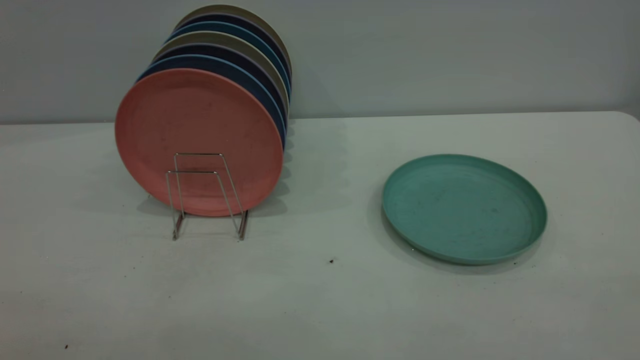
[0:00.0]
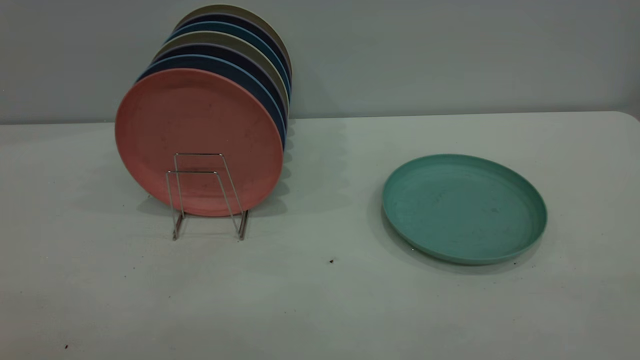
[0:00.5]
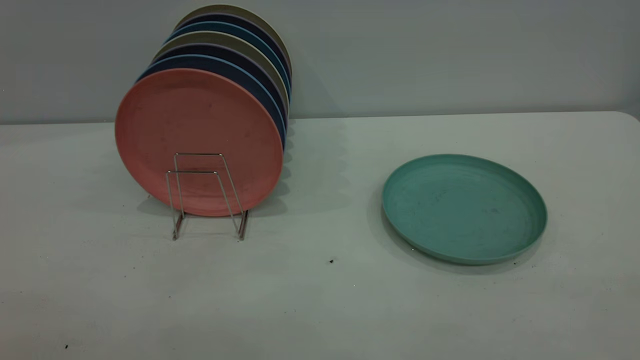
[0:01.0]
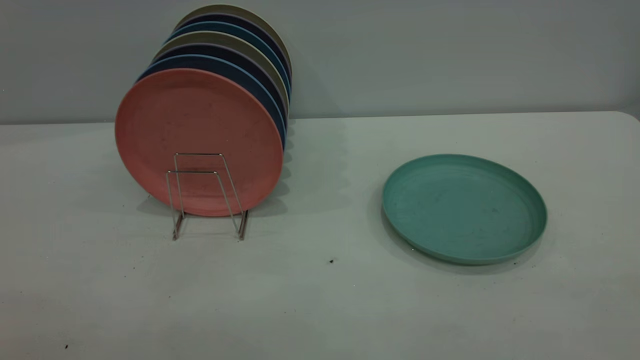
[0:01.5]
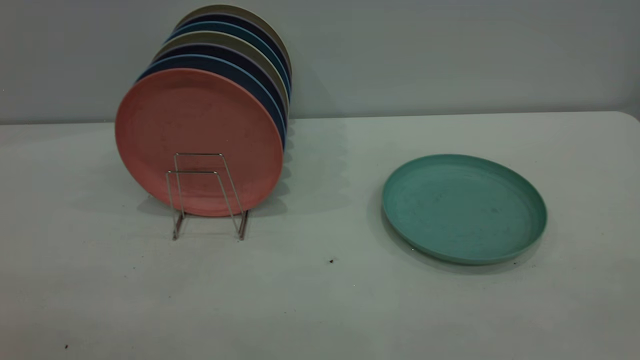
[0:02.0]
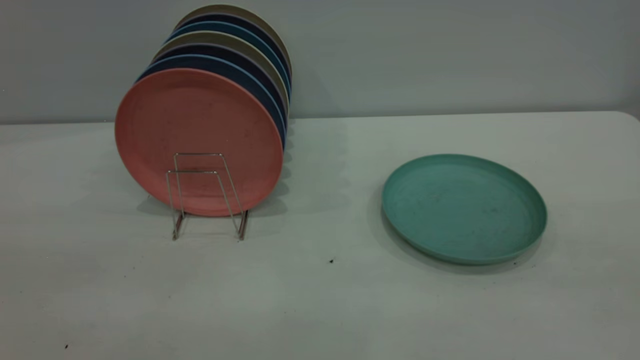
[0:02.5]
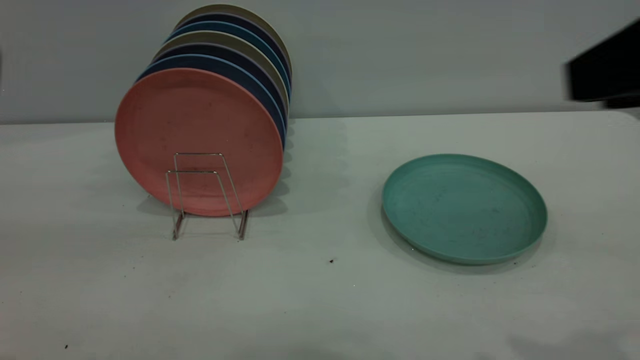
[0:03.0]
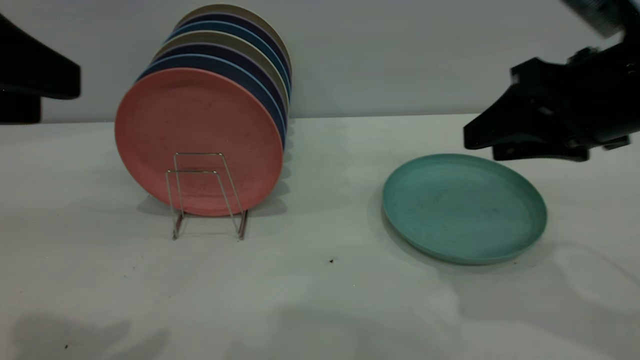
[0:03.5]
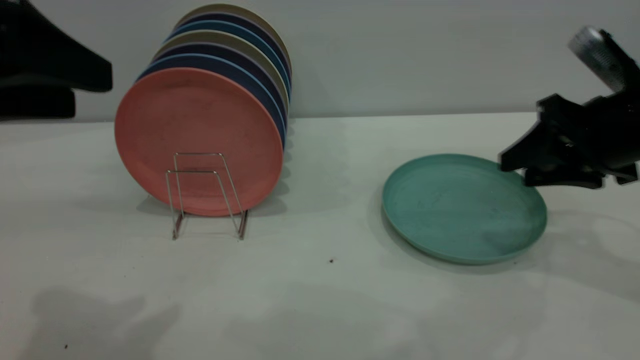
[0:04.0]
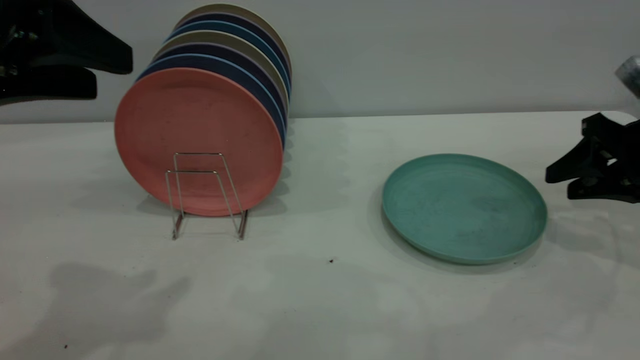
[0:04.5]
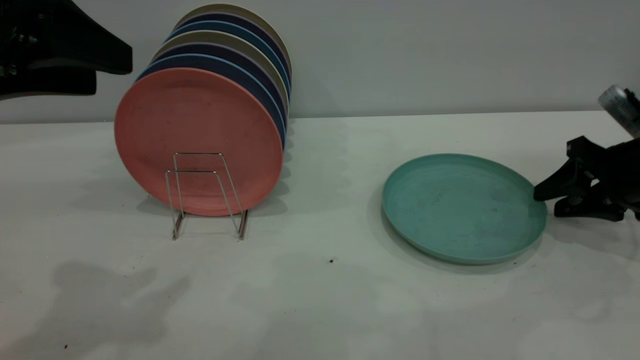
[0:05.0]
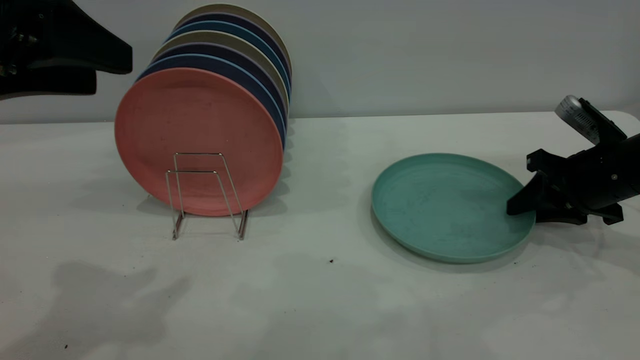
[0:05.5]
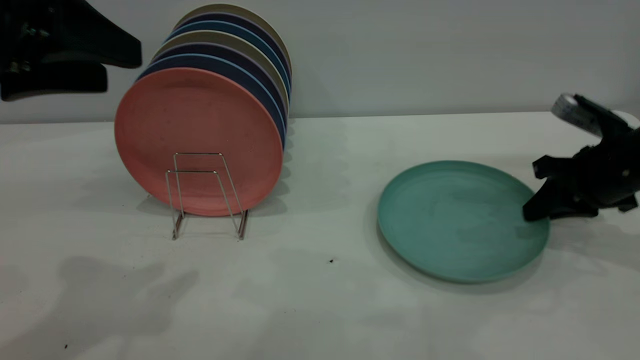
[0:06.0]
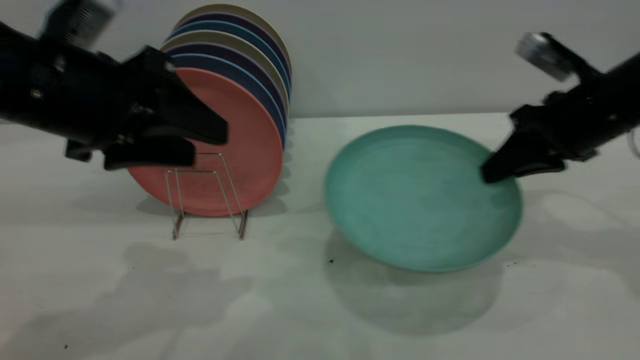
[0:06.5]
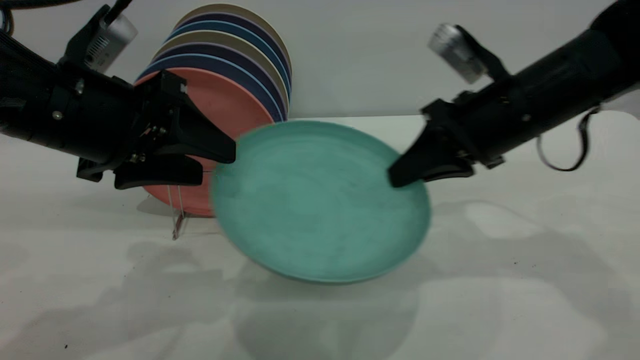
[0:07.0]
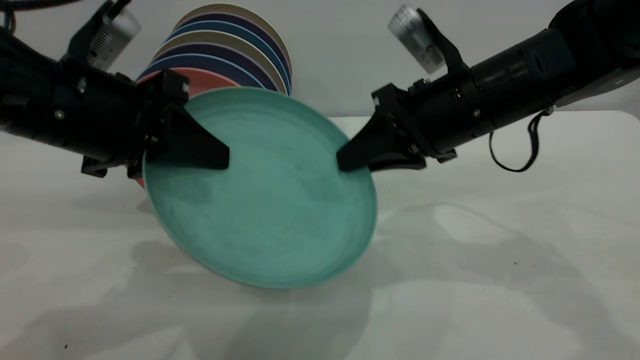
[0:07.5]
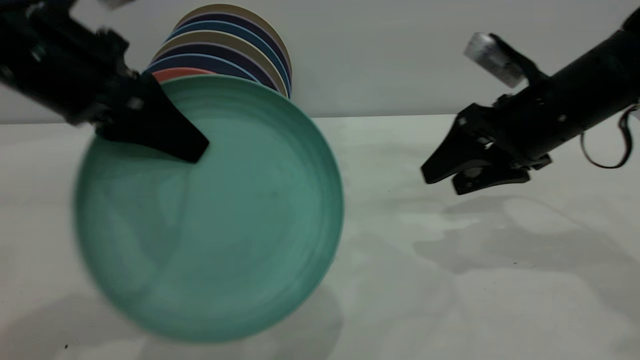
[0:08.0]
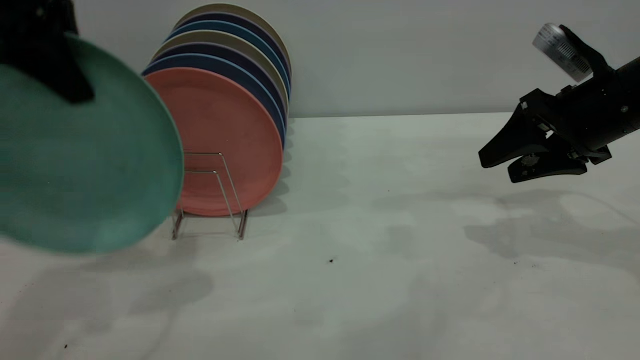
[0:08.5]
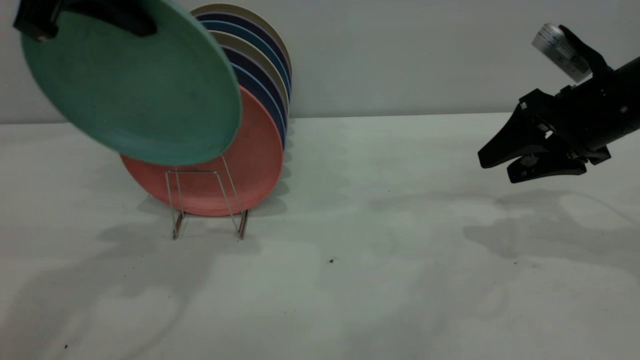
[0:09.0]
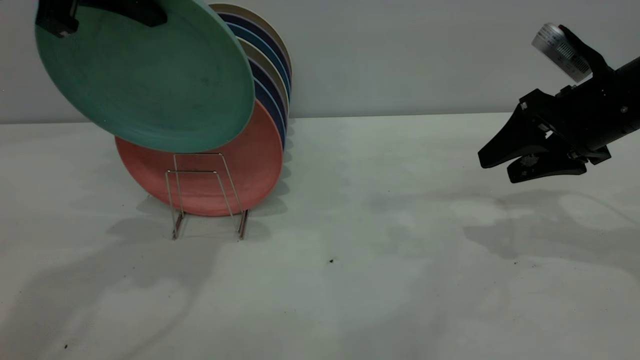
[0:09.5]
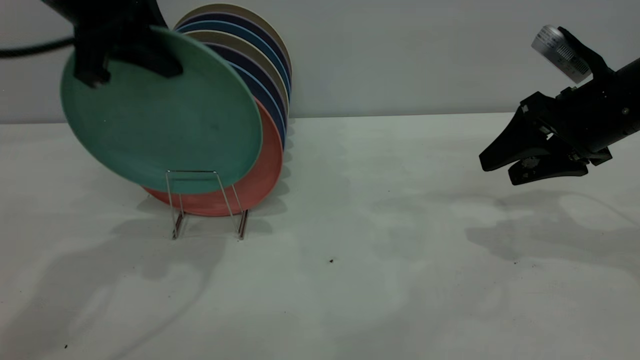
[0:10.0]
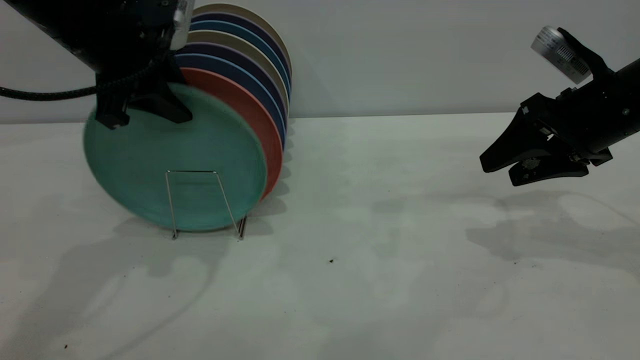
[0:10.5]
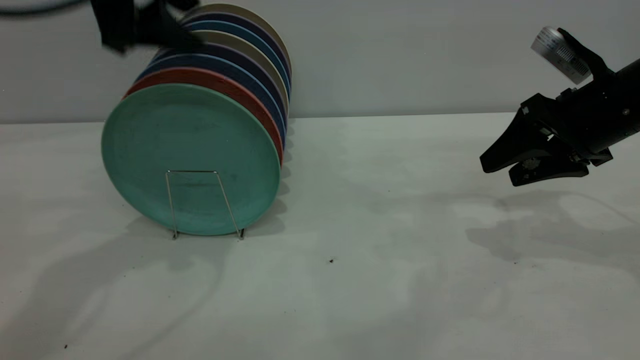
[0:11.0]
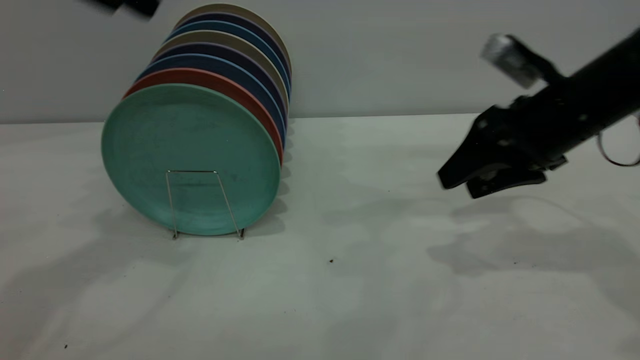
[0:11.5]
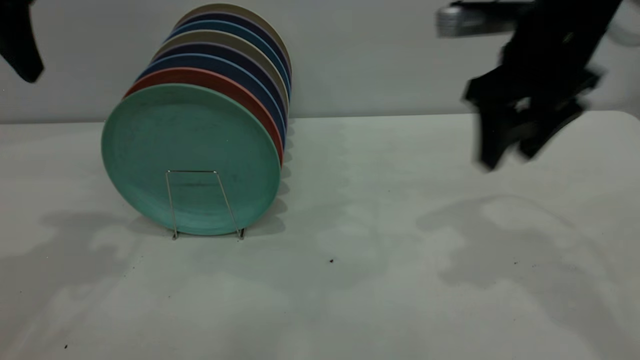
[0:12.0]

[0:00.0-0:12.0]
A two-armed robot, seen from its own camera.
Task of the whole recording: the right gripper grasp the green plate, the right gripper pass the green plate to the left gripper, and the left gripper place the green plate on the plate rack.
Step, 0:00.0 to 0:06.0: Pick up the plate with the right gripper.
Step, 0:06.5 to 0:07.5: Pass the plate from the right gripper to the left gripper.
Step, 0:08.0 to 0:10.5: Place the plate on the shelf.
0:02.0 to 0:04.0: The right gripper goes some 40 cm forward and downward. The left gripper moves forward, about 20 cm.
0:04.0 to 0:06.0: The right gripper heads downward, covering about 5 cm, and closes up.
0:06.0 to 0:08.0: The left gripper ends up about 5 cm from where it was, and closes its fingers. Meanwhile the right gripper heads to the left and upward, covering about 10 cm, and opens.
0:08.0 to 0:10.0: The left gripper shifts approximately 10 cm forward; the right gripper moves to the right, approximately 5 cm.
0:10.0 to 0:12.0: The right gripper goes roughly 15 cm upward and to the left. Meanwhile the left gripper is displaced to the left, upward and backward by some 10 cm, and opens.

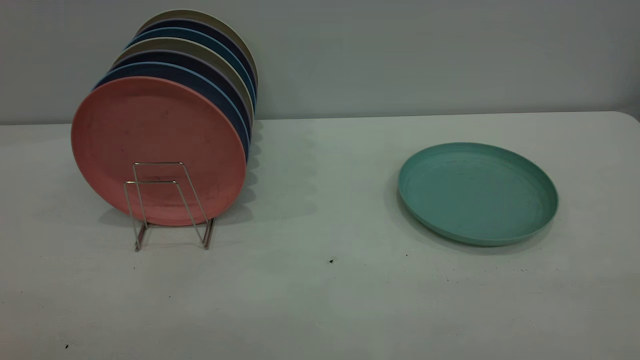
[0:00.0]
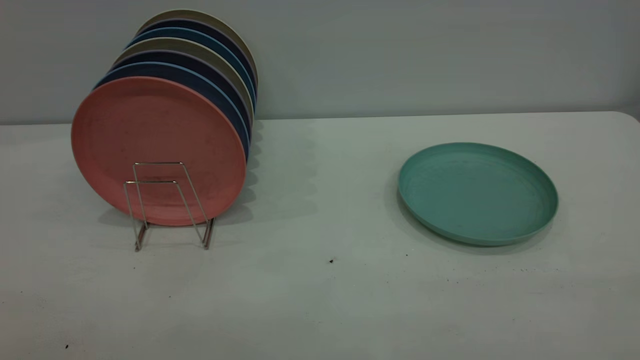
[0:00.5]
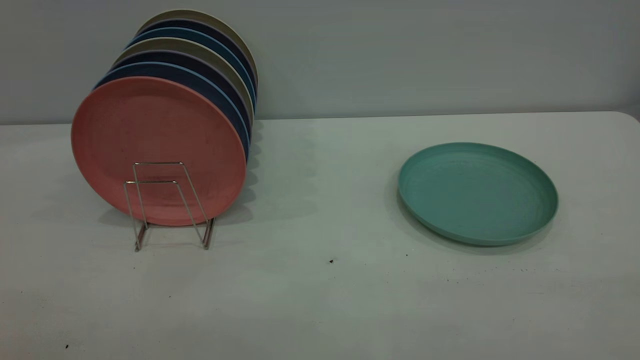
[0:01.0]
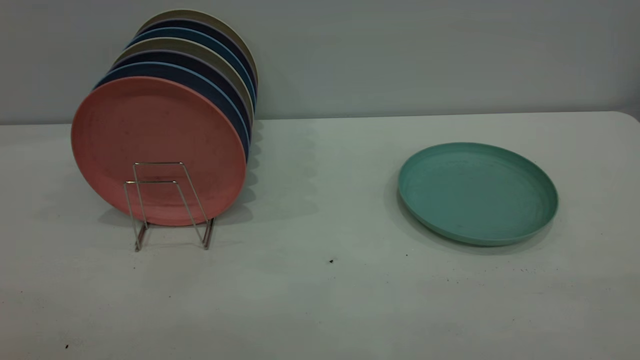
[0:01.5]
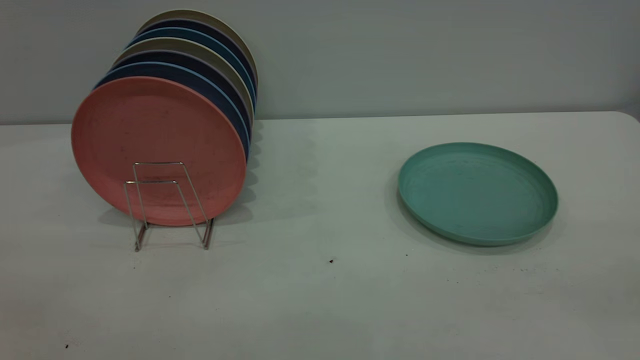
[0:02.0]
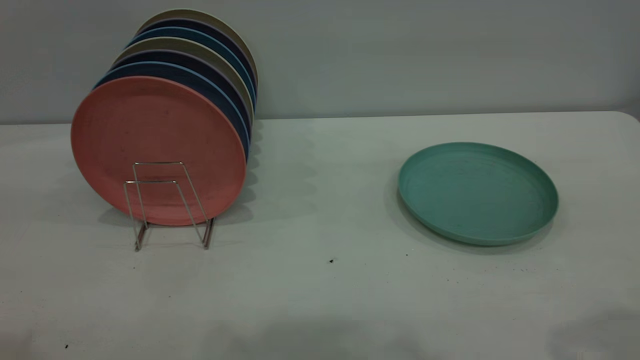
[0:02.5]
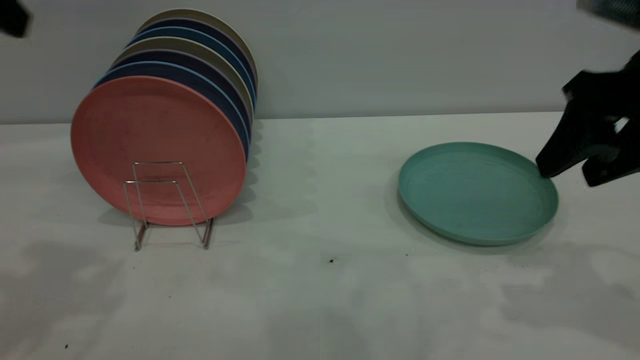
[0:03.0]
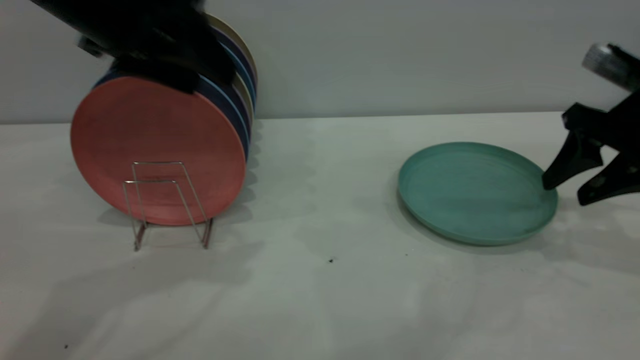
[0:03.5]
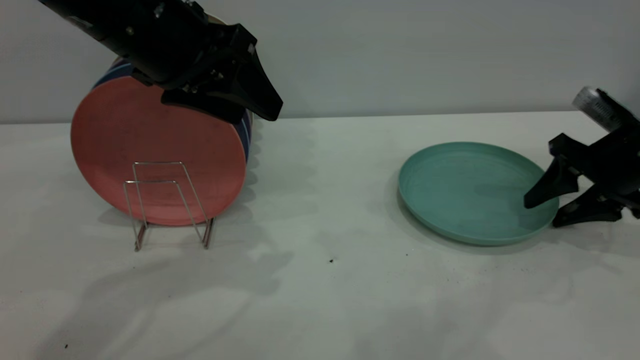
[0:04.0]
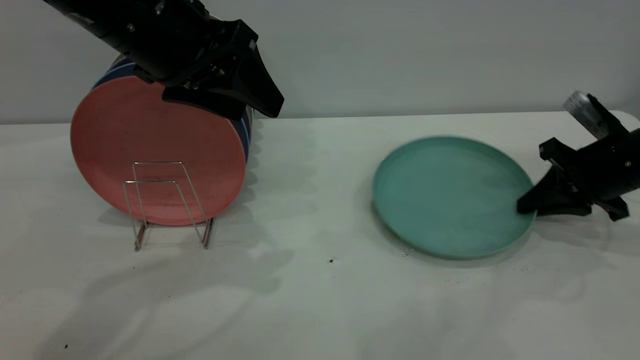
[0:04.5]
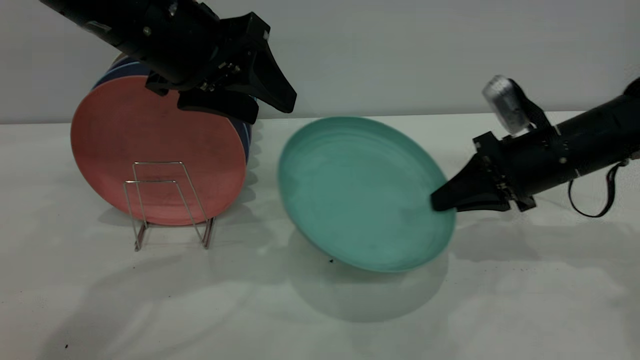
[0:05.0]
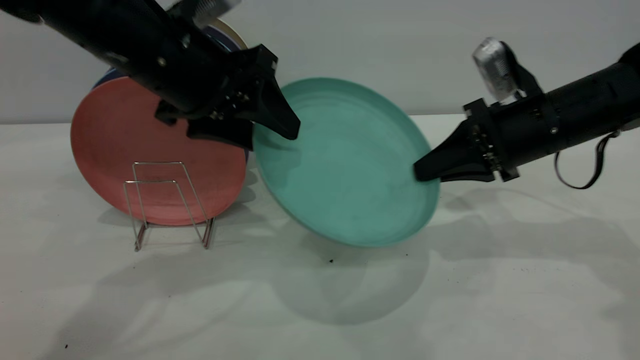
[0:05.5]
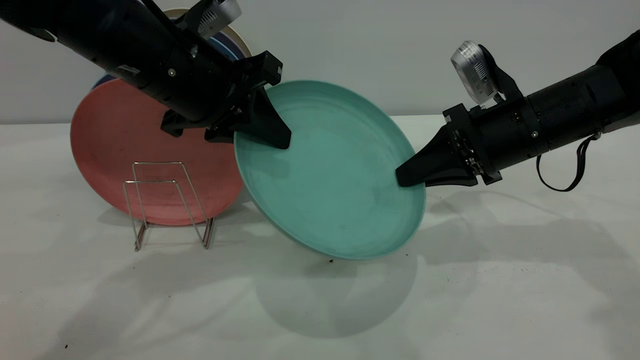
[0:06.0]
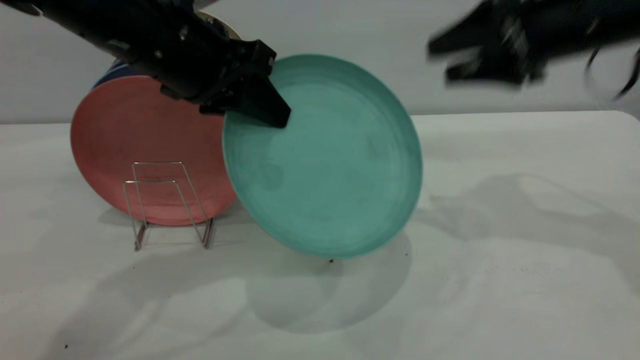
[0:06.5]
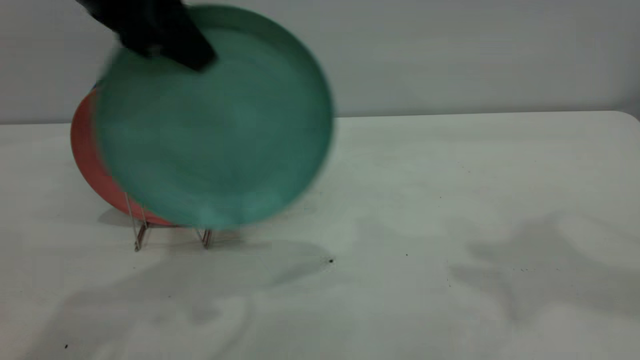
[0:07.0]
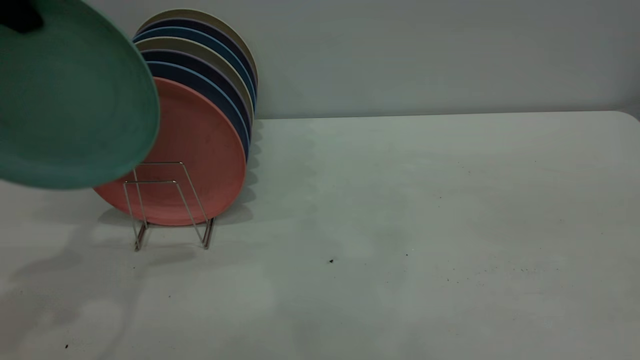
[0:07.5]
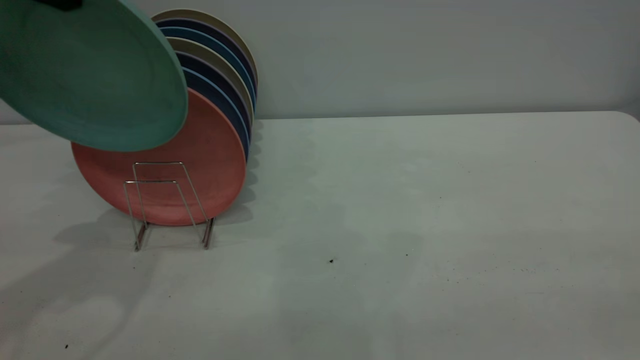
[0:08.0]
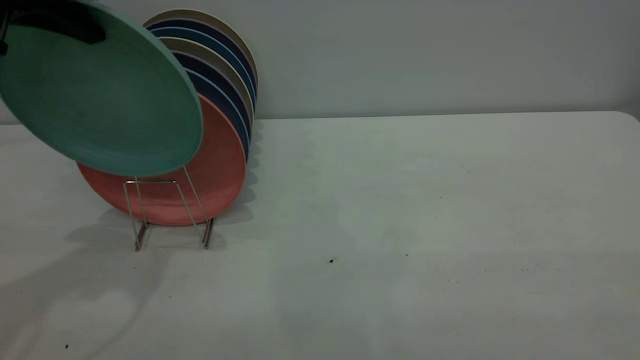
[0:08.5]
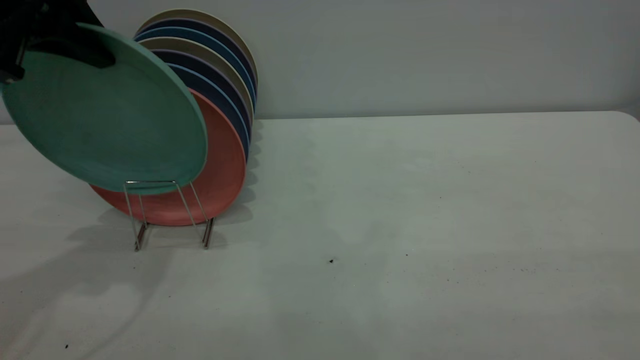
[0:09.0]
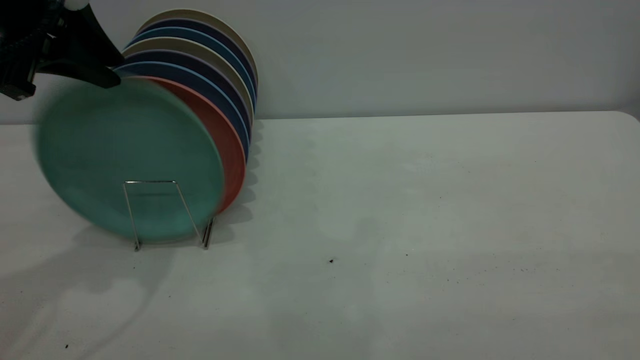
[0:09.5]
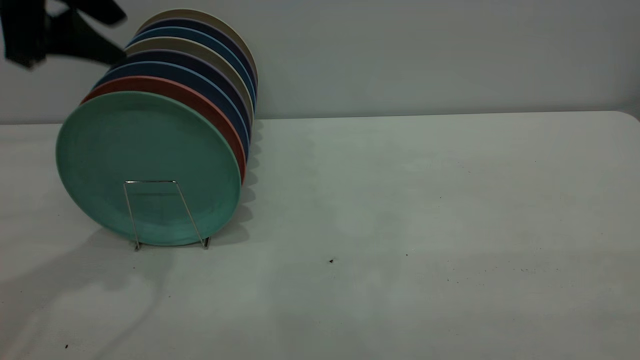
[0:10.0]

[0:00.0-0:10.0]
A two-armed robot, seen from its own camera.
Task of the whole recording: the right gripper grasp the green plate, the right gripper pass the green plate to the left gripper, and the left gripper place the green plate on the plate rack.
Step, 0:00.0 to 0:04.5: Pick up the plate with the right gripper.
Step, 0:05.0 to 0:06.0: Pass the plate from the right gripper to the left gripper.
Step, 0:06.5 to 0:09.5: Place the plate on the shelf.
0:02.0 to 0:04.0: The left gripper is displaced forward, to the right and downward by some 35 cm, while the right gripper heads forward and downward, covering about 40 cm.
0:04.0 to 0:06.0: The left gripper closes up. The right gripper travels to the left by some 15 cm, and closes its fingers.
0:06.0 to 0:08.0: The left gripper is displaced upward and to the left by roughly 20 cm. Meanwhile the right gripper heads backward and upward, covering roughly 40 cm, and opens up.
0:08.0 to 0:10.0: The left gripper opens up.
